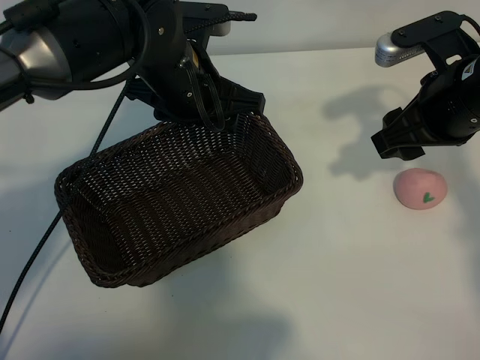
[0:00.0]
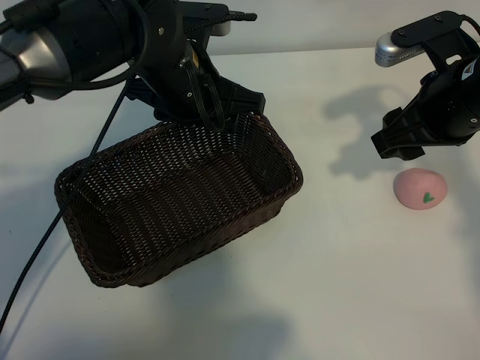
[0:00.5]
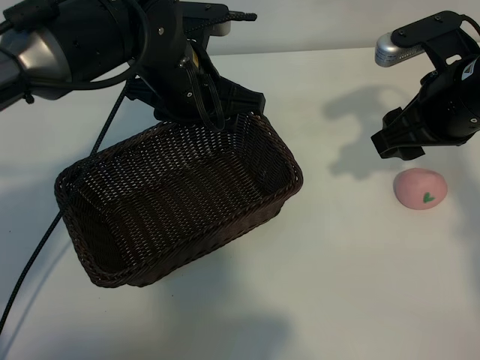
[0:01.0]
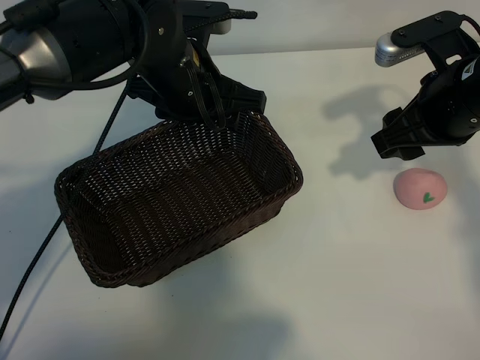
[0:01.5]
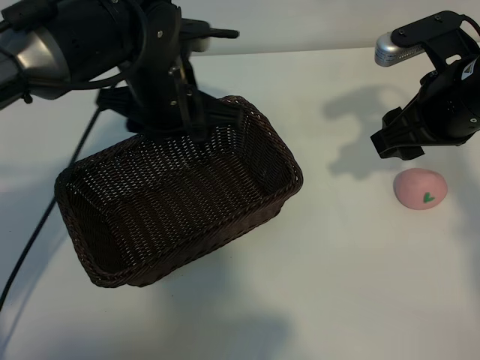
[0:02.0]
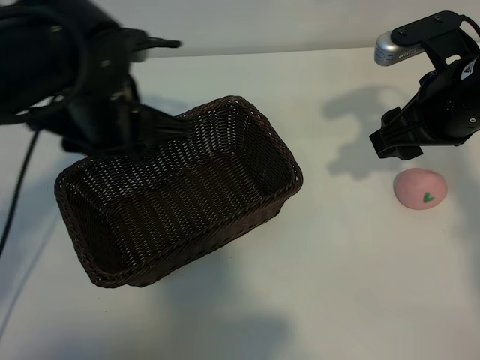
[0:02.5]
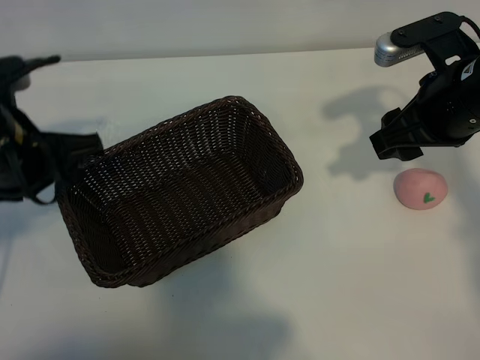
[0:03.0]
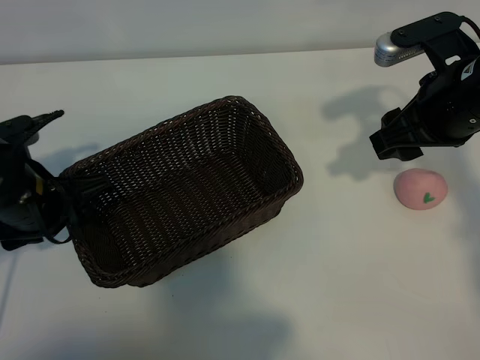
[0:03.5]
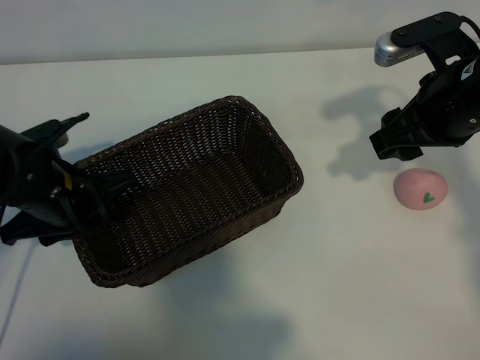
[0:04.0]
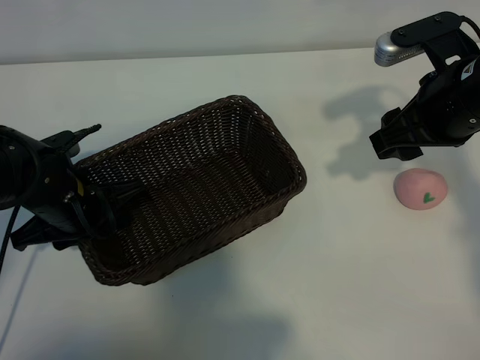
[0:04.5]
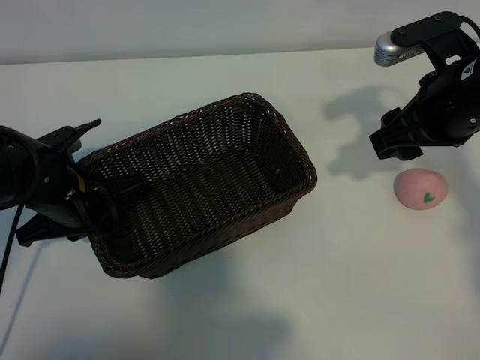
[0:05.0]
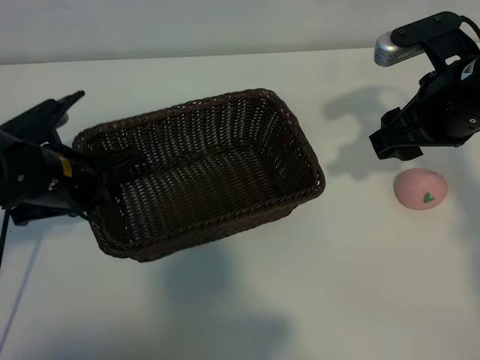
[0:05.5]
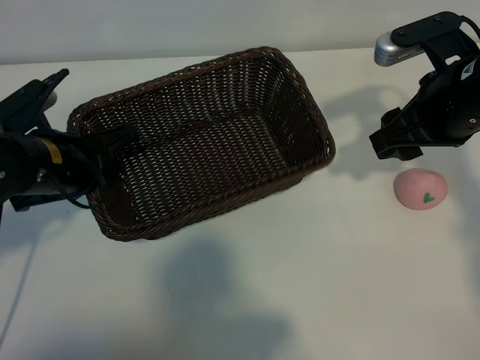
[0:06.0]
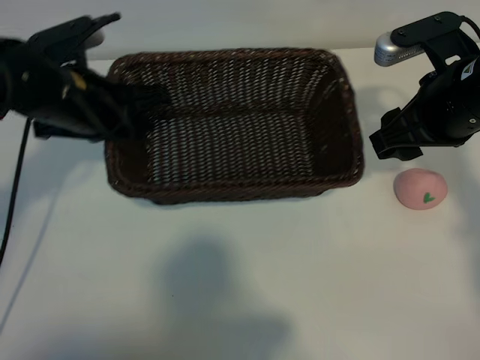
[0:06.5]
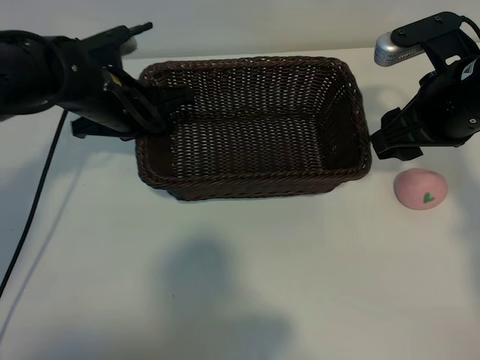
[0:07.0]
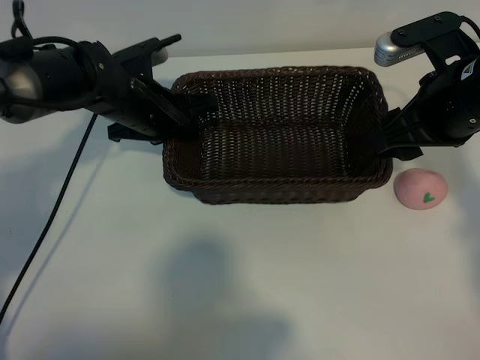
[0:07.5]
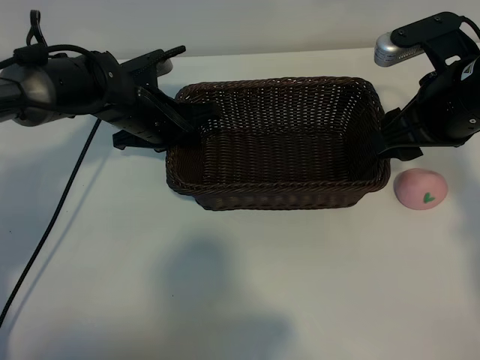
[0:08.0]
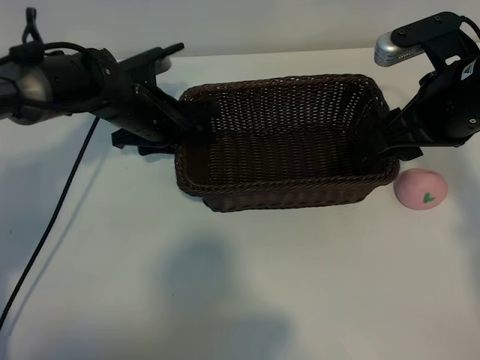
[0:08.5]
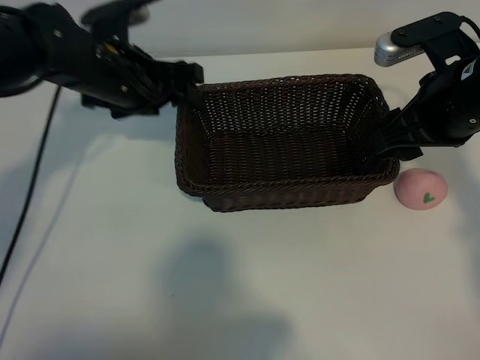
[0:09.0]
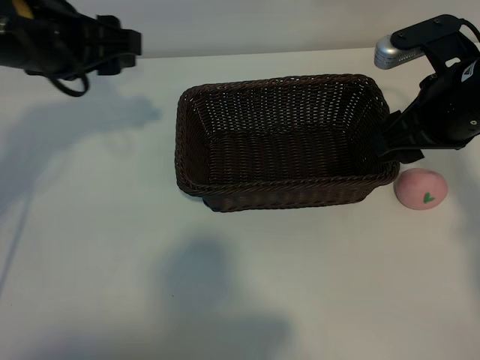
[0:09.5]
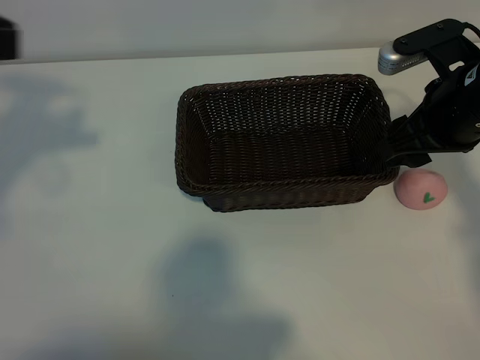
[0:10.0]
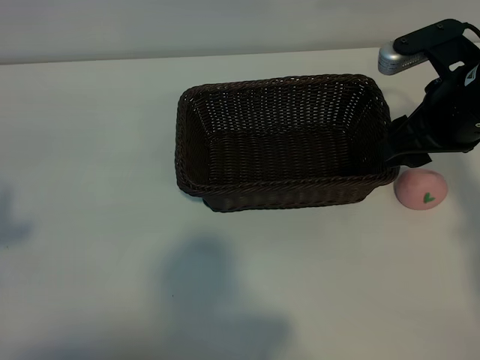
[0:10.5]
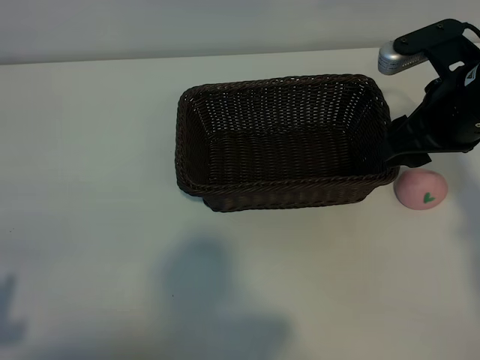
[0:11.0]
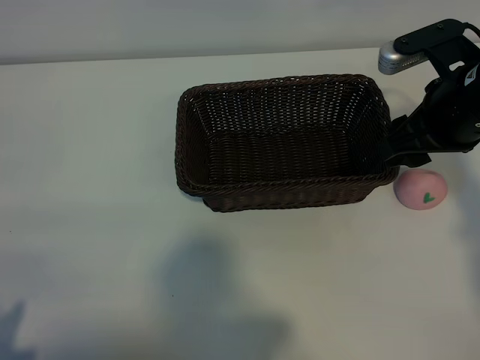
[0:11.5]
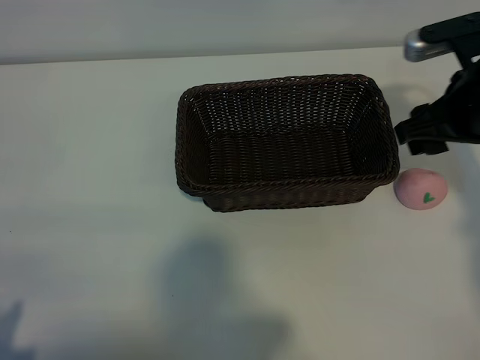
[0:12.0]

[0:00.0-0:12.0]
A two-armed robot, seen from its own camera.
Task of the whole recording: pick up the peach and put it into the basket.
Step, 0:01.5 to 0:04.5: Grasp the basket with left gripper.
Step, 0:05.5 to 0:08.5: Place the basket in the center of view with left gripper.

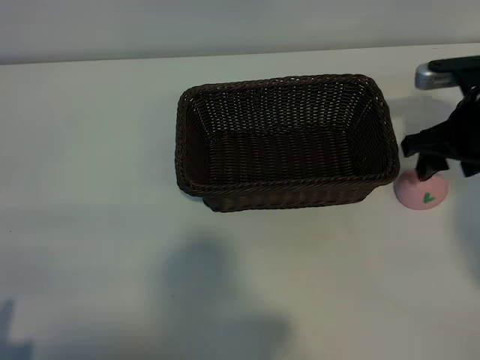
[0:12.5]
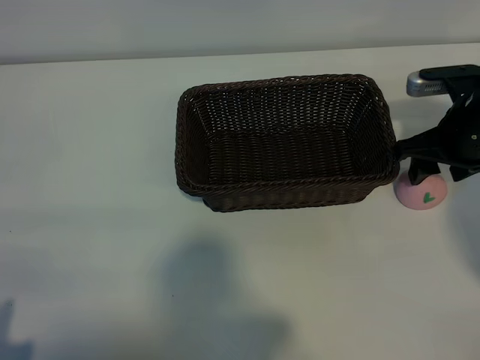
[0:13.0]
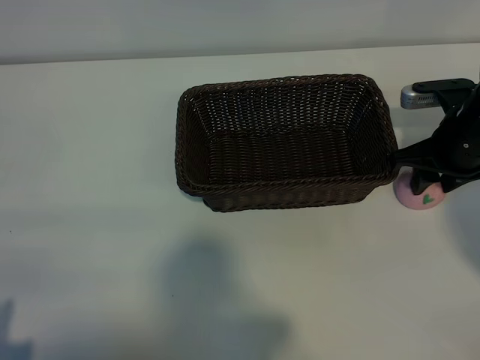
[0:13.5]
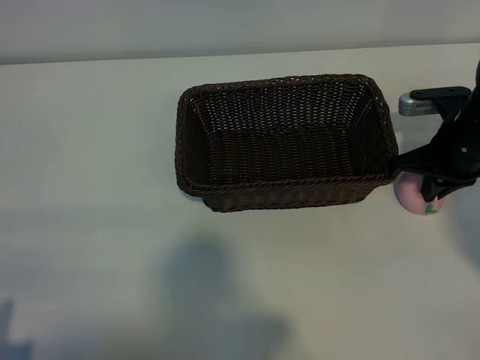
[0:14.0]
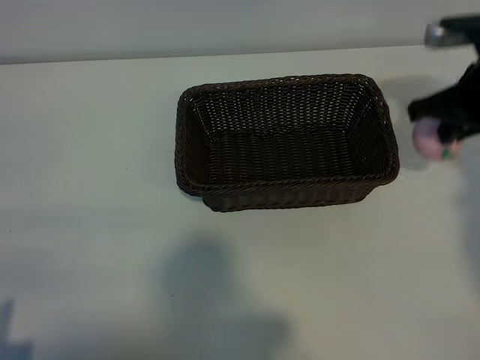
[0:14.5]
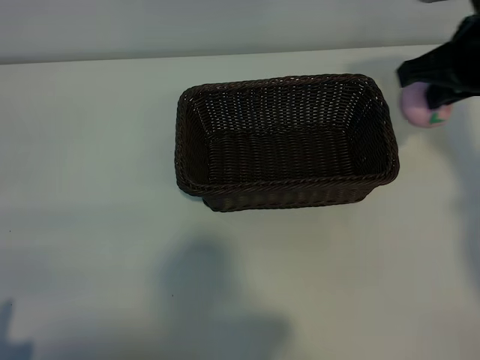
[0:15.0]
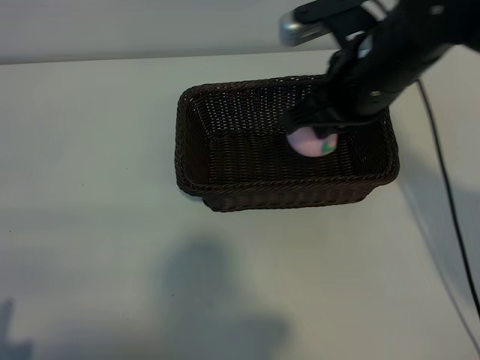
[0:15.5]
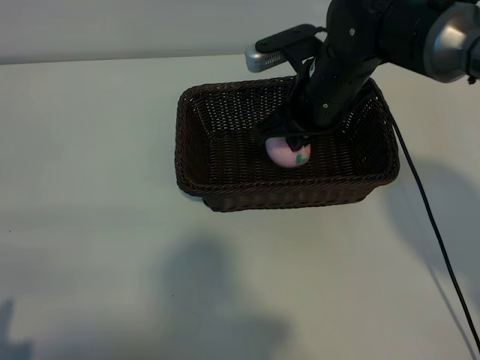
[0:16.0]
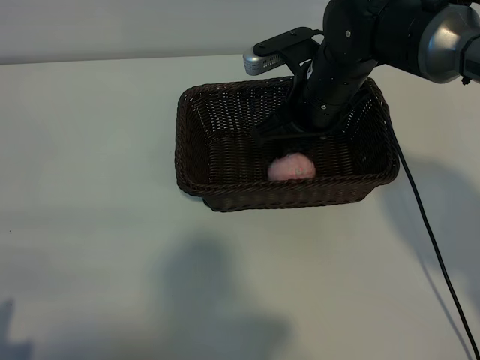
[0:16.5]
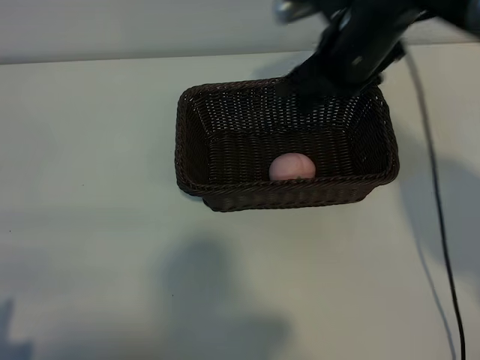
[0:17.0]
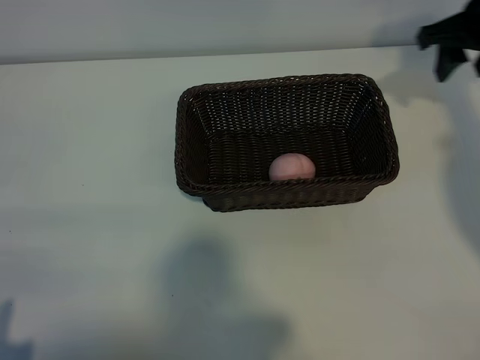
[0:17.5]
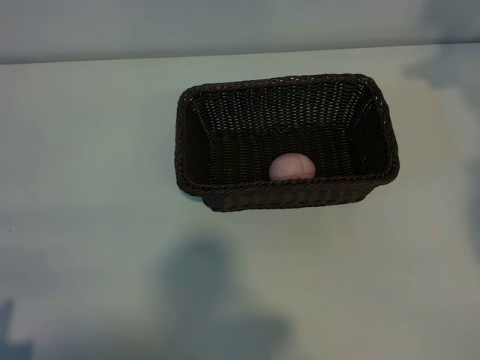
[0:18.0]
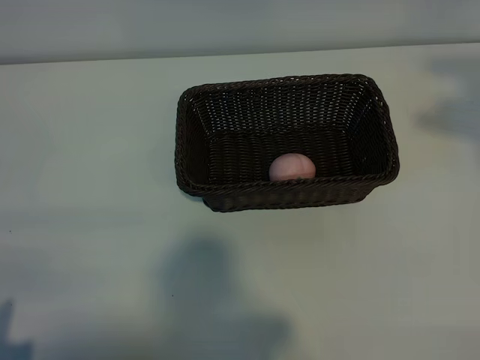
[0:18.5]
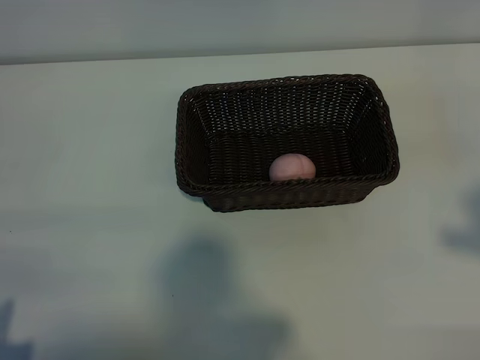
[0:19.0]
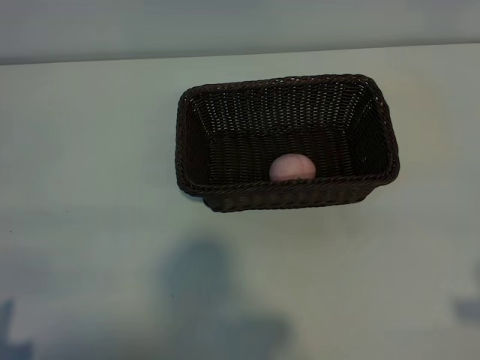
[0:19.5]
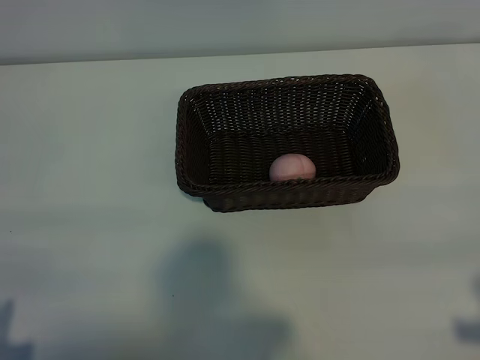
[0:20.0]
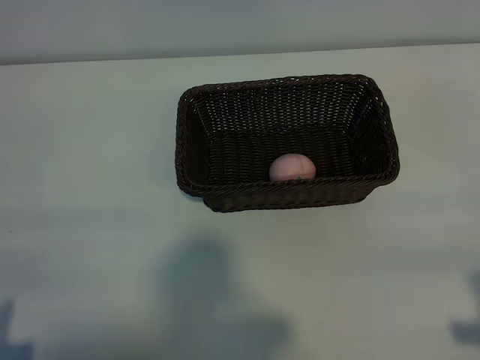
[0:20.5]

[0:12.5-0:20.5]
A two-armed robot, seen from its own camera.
Task of the whole recording: pick up the peach and put it into the basket.
Step, 0:14.0 to 0:16.0: Place the peach in the basket with right gripper.
